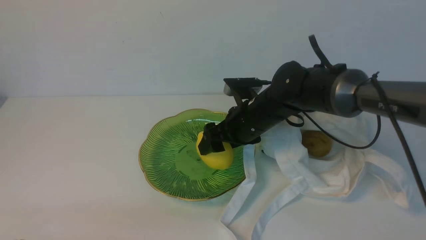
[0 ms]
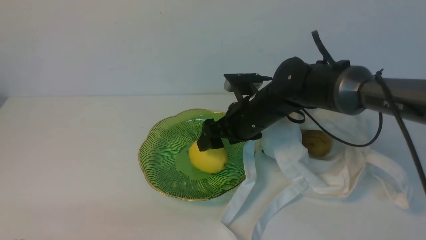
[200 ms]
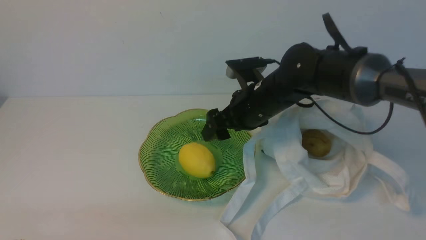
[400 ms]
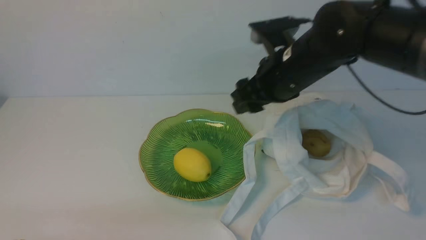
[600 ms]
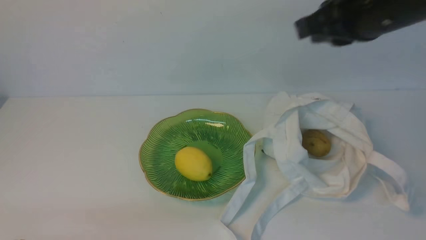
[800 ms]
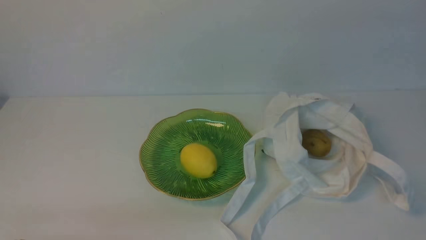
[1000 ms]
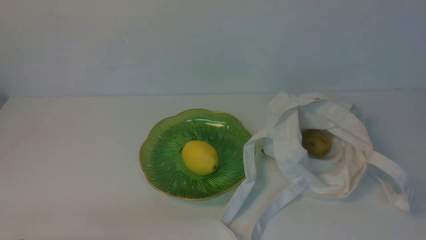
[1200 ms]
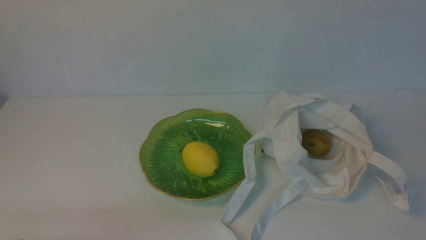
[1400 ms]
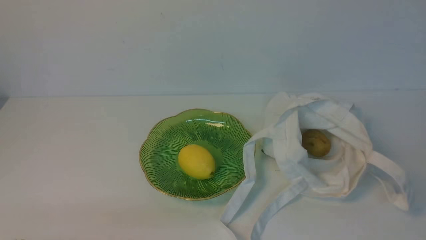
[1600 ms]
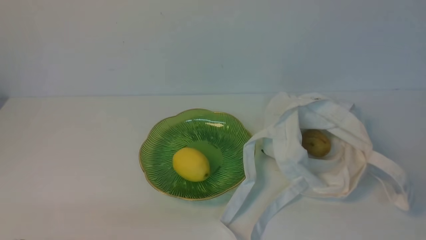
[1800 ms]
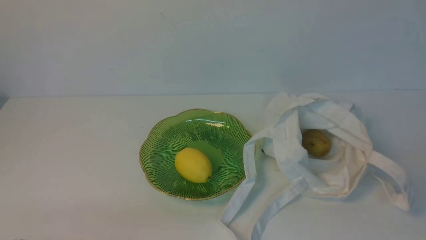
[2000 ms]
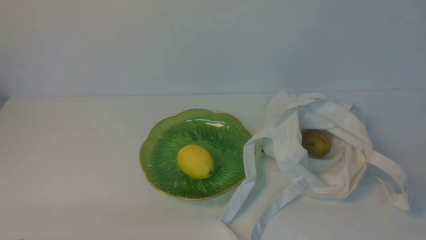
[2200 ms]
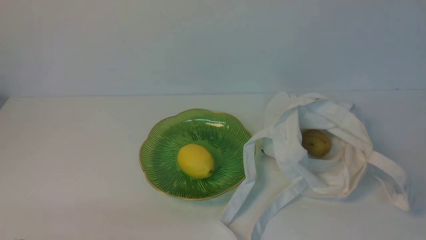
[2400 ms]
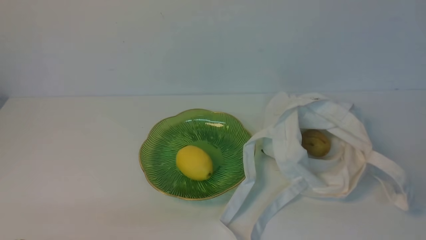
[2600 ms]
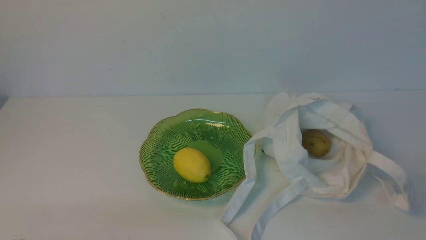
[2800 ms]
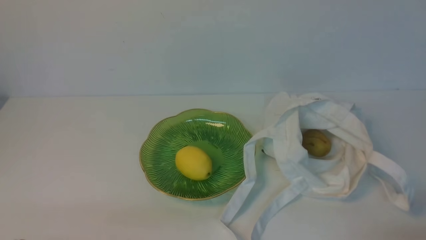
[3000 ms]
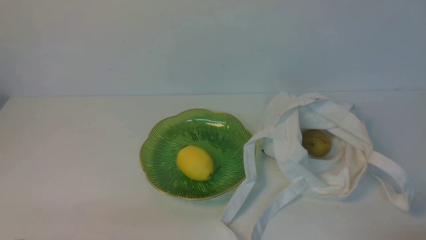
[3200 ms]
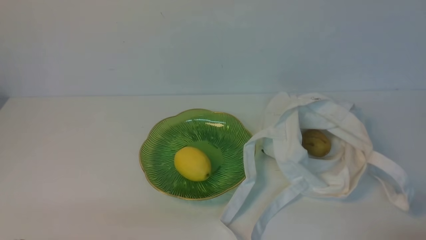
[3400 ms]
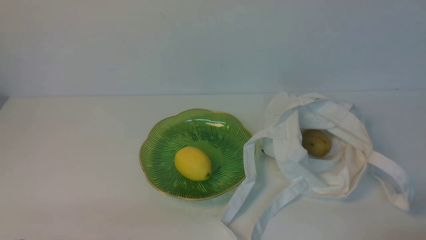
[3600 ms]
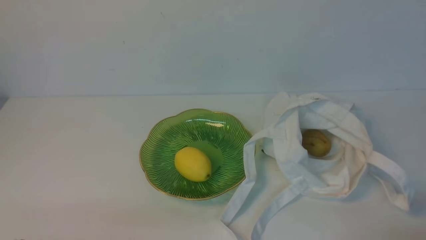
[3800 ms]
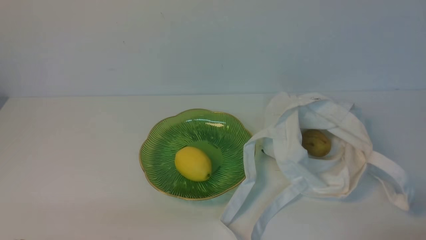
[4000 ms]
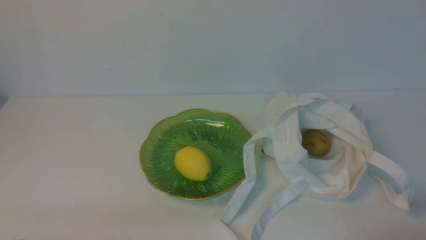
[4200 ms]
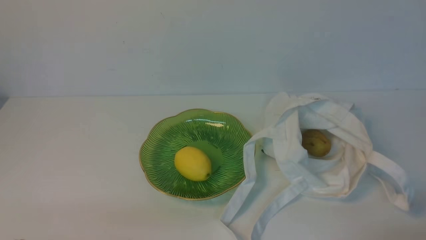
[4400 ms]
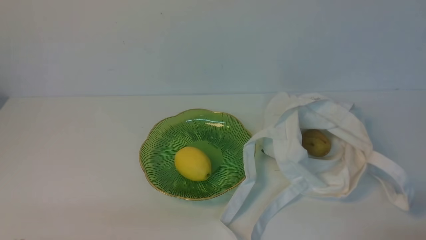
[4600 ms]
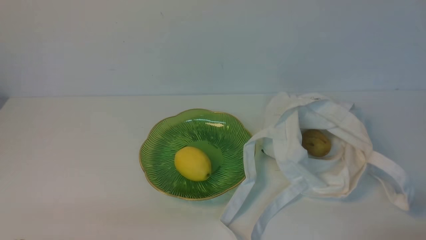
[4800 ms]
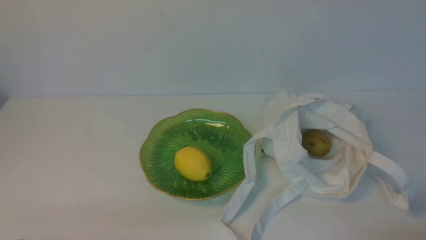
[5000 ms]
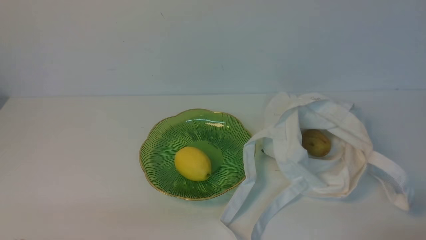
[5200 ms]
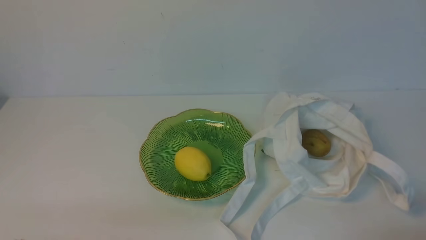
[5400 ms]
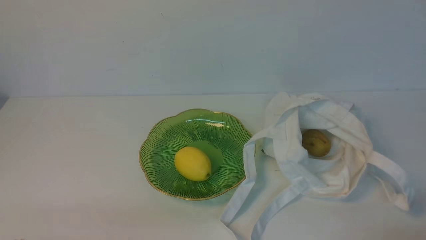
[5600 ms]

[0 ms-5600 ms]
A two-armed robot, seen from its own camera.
0 ms to 1400 ms: The right gripper heads backward, to the right and upward, covering roughly 50 cm, and closes its fingers.
1400 ms to 2800 ms: The right gripper shifts approximately 15 cm downward.
4200 ms to 5600 ms: The two grippers keep their place.
